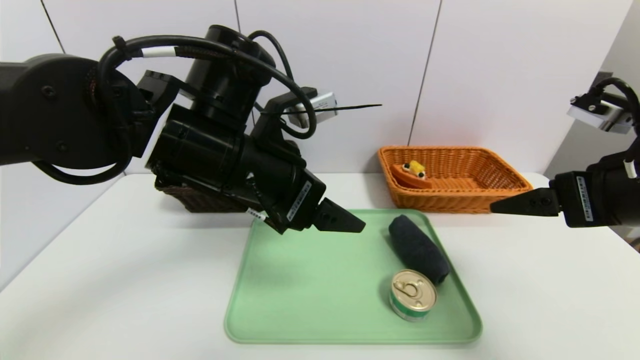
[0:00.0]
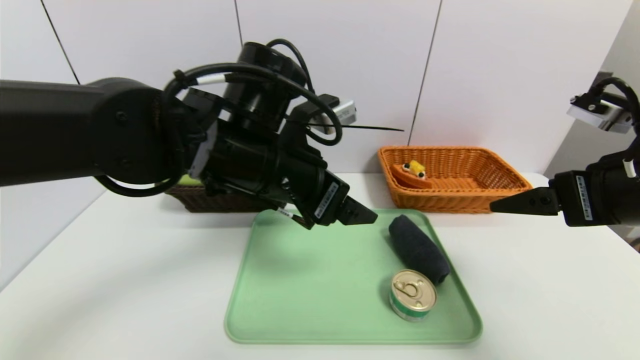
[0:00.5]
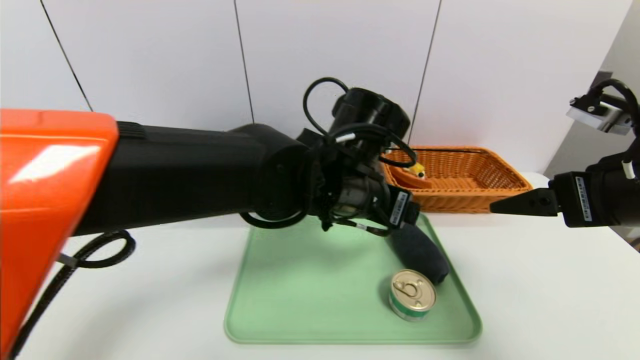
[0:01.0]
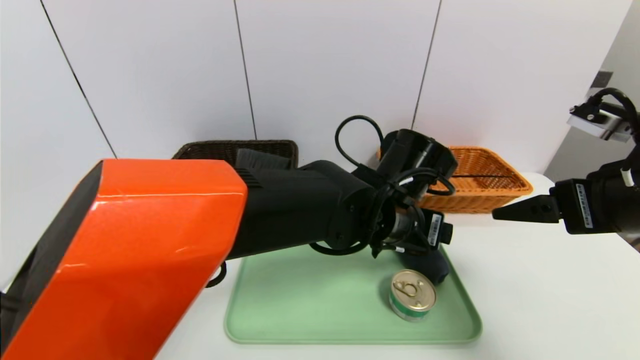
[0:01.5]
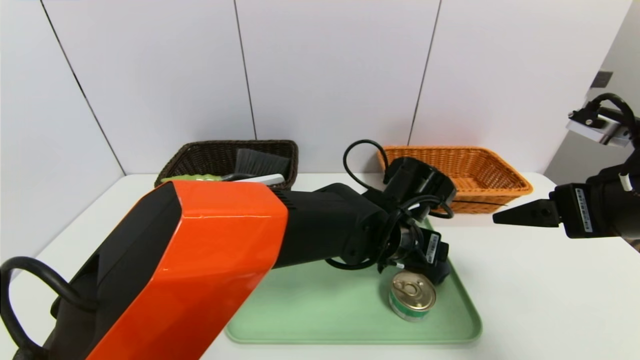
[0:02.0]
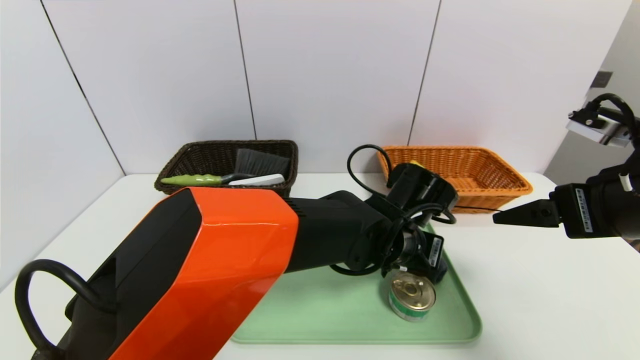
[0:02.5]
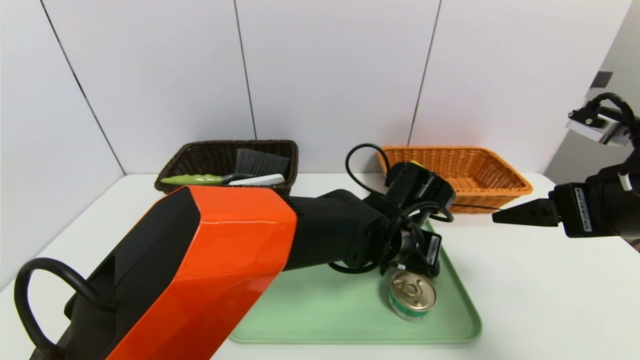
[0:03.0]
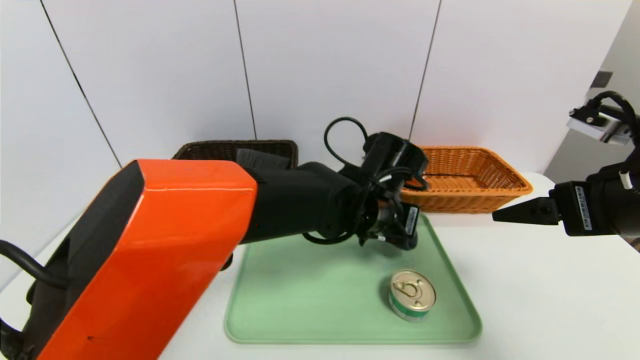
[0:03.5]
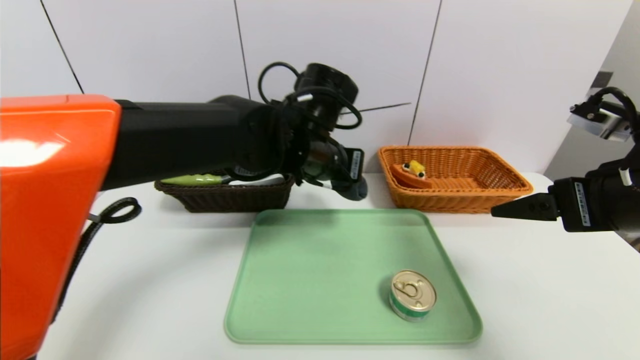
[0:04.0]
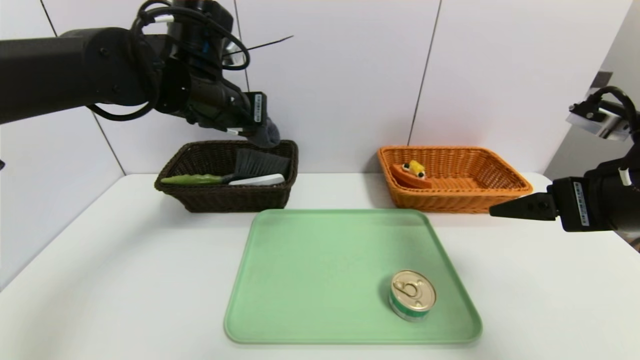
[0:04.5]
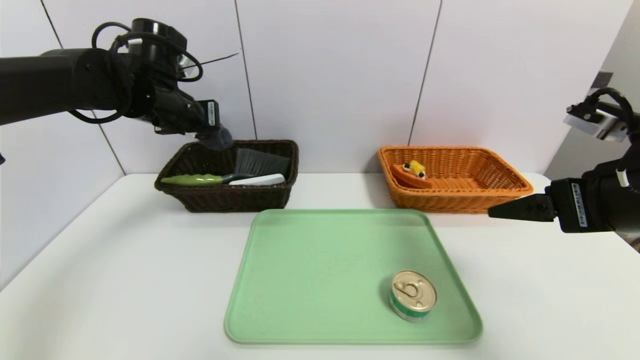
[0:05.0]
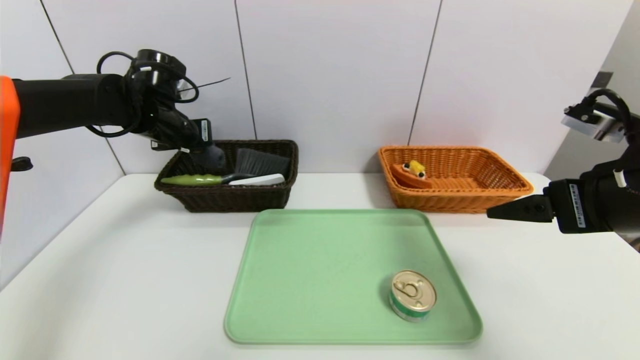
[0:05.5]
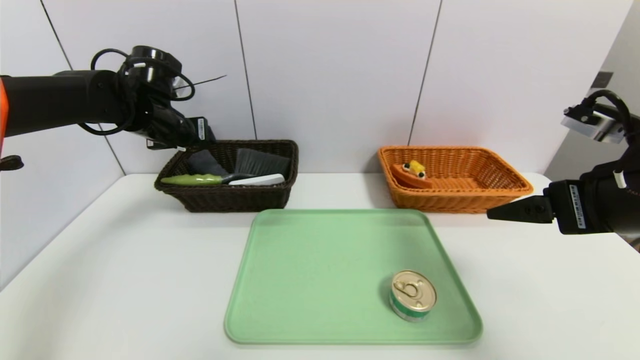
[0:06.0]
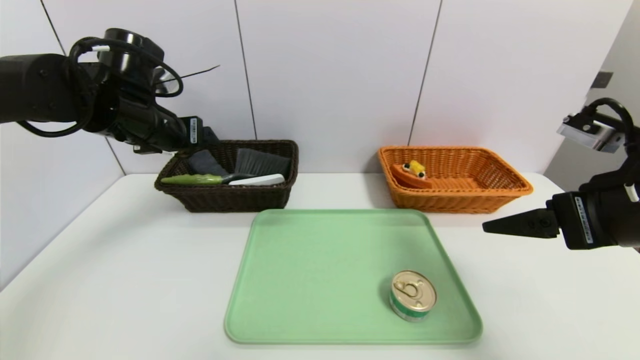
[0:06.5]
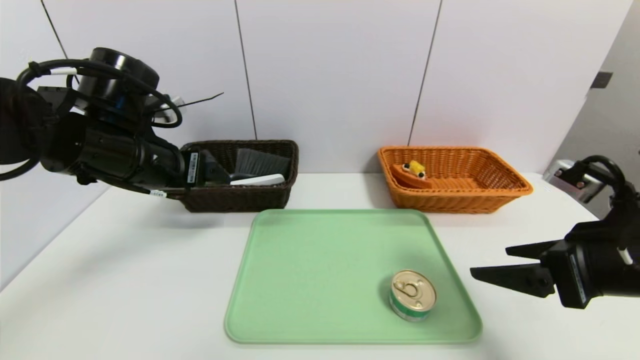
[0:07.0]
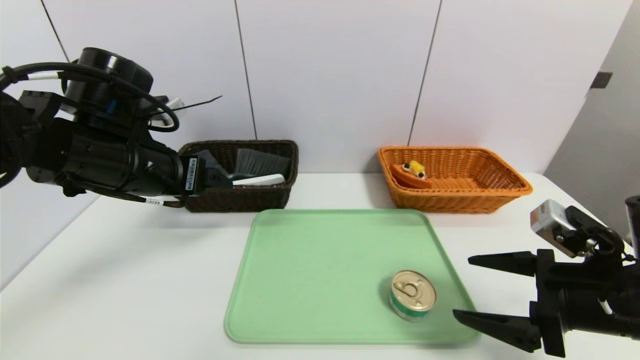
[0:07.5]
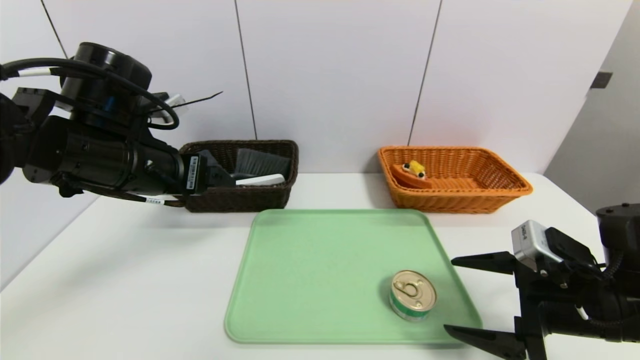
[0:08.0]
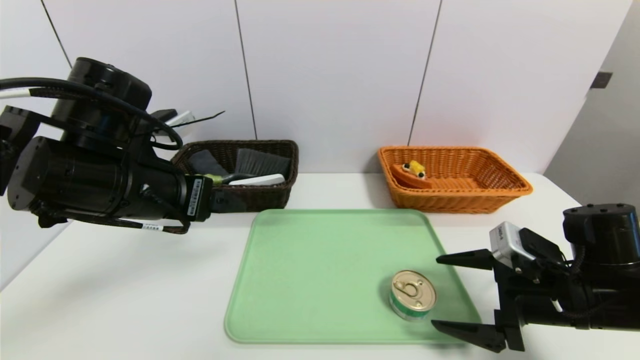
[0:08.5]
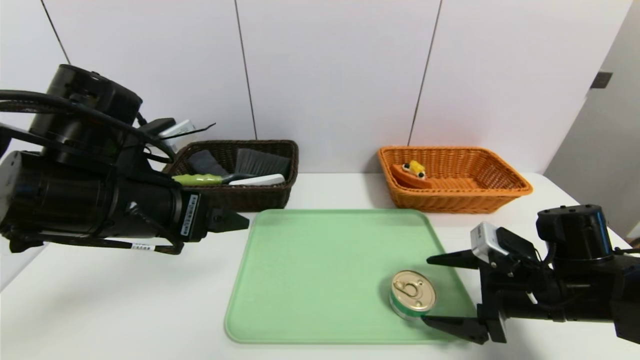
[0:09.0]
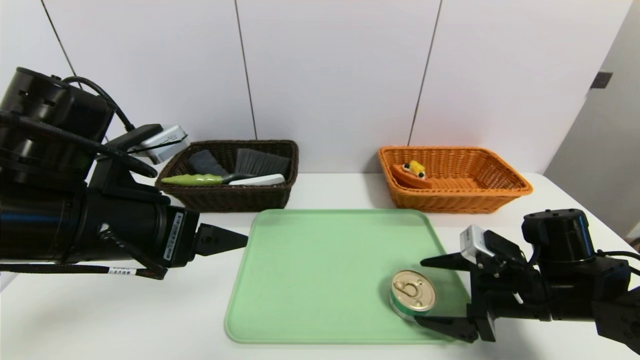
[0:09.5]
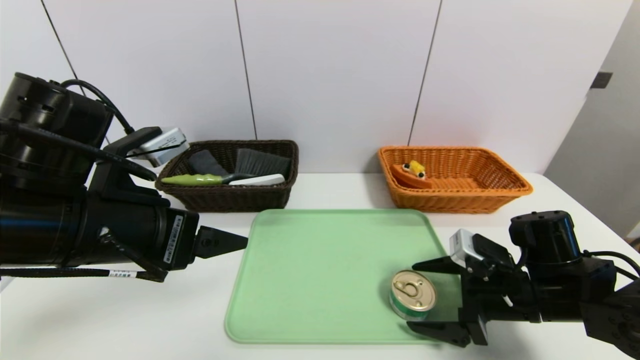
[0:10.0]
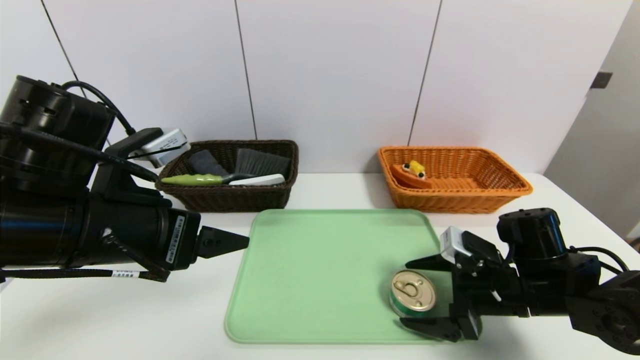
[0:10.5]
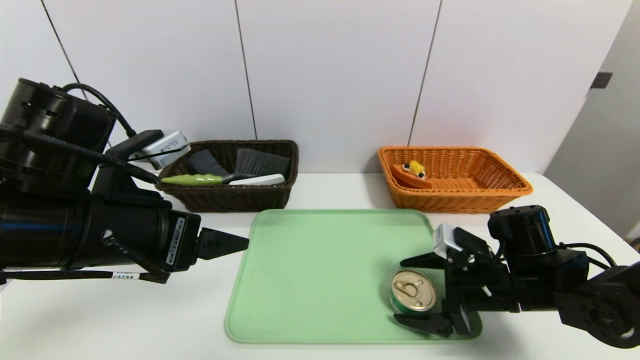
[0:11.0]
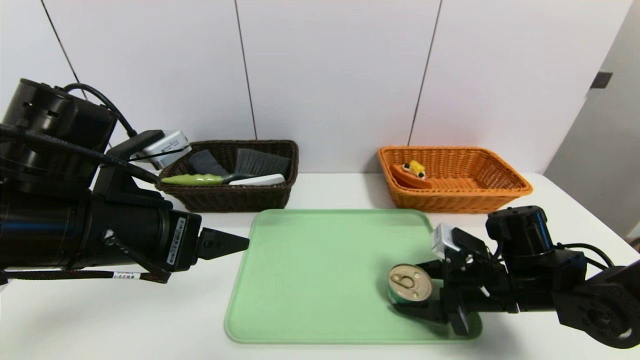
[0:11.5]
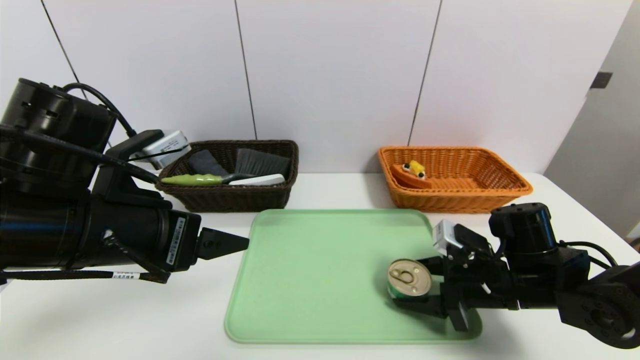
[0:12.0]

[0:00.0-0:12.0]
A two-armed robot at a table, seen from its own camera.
Task of the whole recording: place the food in the right basket with the right gripper, and place the non food items in the left basket with the left gripper.
Step, 0:00.0 to 0:06.0: Grasp the grey towel and put it in the left basket.
0:00.0 to 0:02.0: The left gripper goes roughly 20 cm to the right and downward.
0:02.0 to 0:04.0: The left gripper moves to the left and upward, about 15 cm, and closes its fingers.
0:04.0 to 0:06.0: The left gripper travels to the left by roughly 25 cm, and opens.
0:06.0 to 0:08.0: The left gripper shifts some 15 cm backward. Meanwhile the right gripper travels downward by about 15 cm.
0:08.0 to 0:10.0: The right gripper is displaced forward and downward by some 5 cm, while the left gripper goes roughly 10 cm backward.
0:10.0 to 0:12.0: The right gripper closes up.

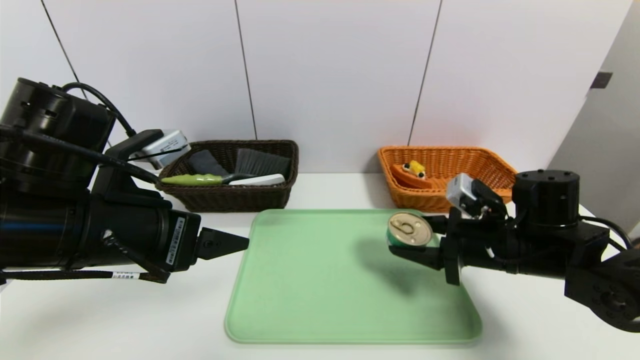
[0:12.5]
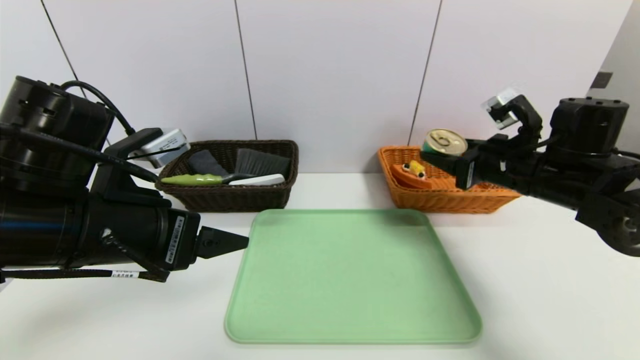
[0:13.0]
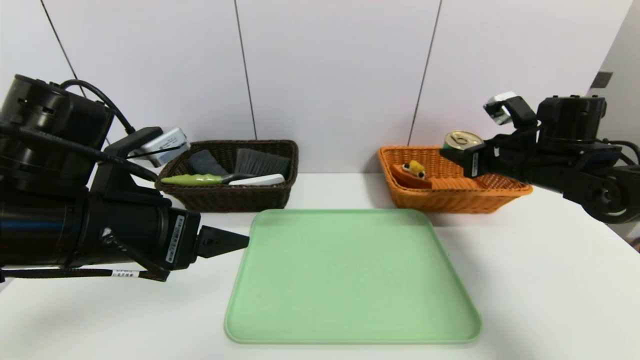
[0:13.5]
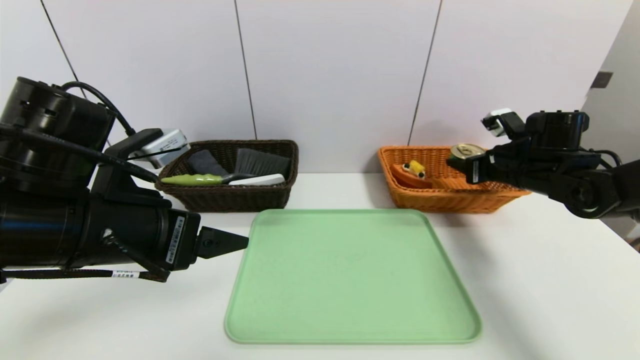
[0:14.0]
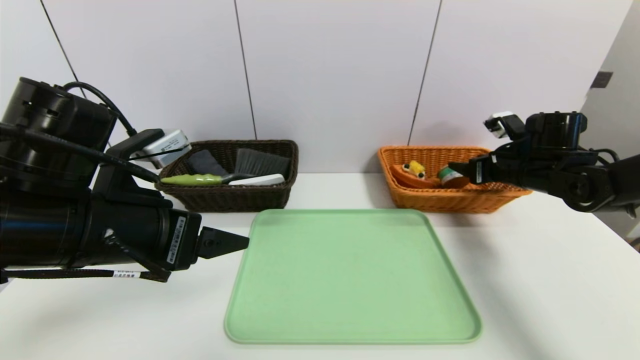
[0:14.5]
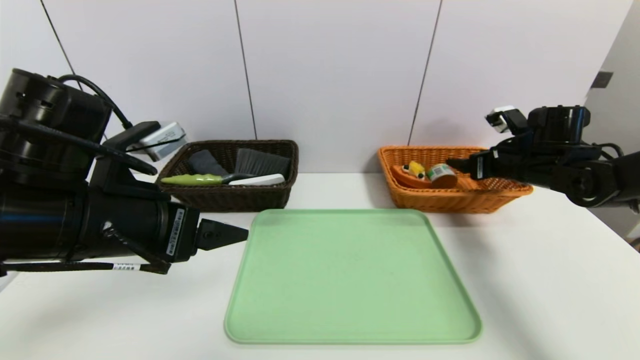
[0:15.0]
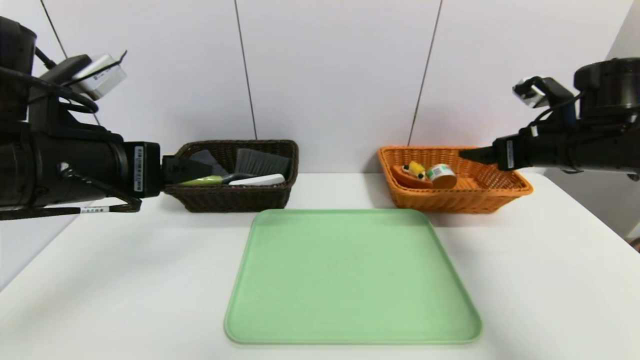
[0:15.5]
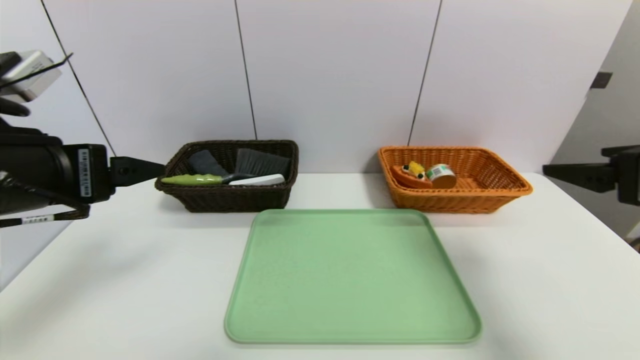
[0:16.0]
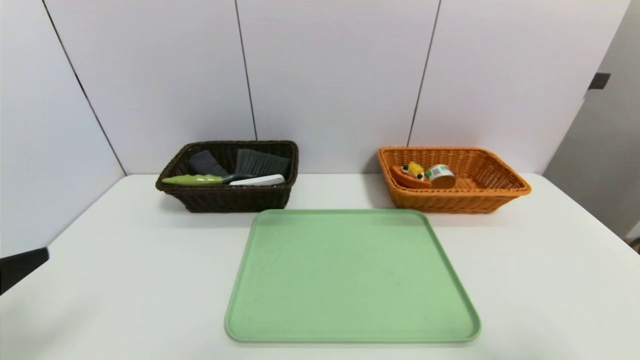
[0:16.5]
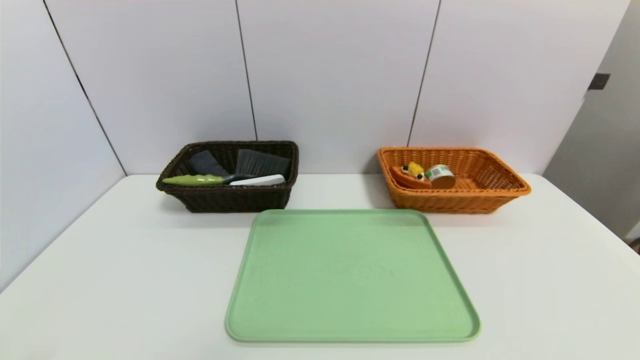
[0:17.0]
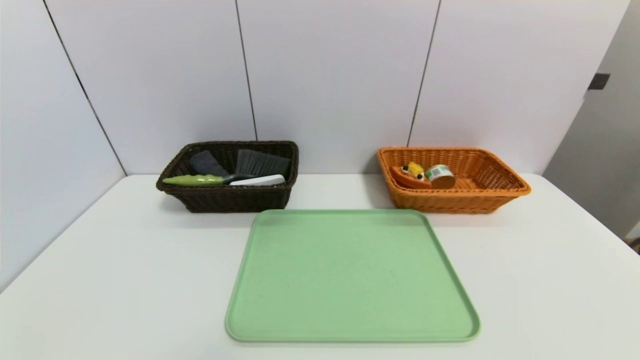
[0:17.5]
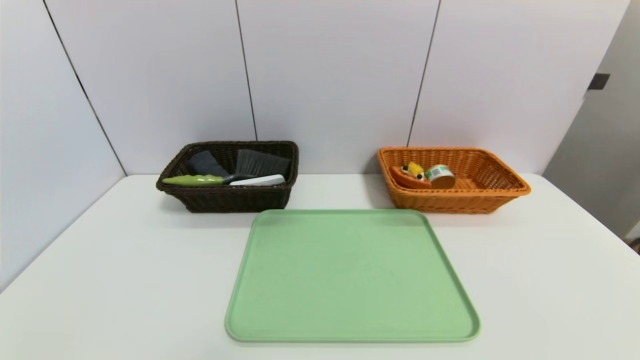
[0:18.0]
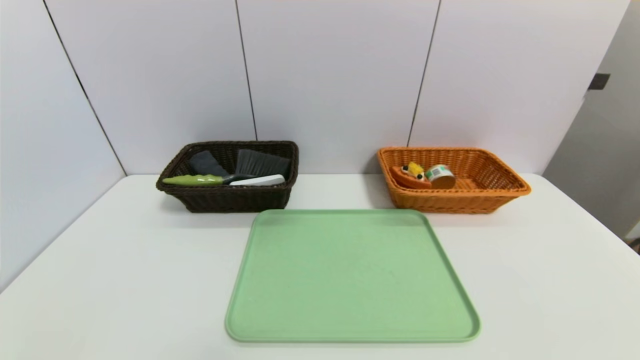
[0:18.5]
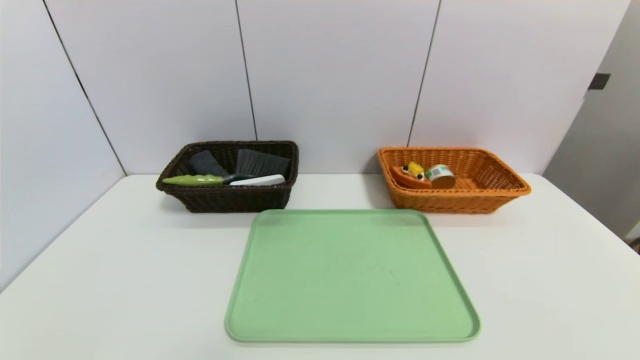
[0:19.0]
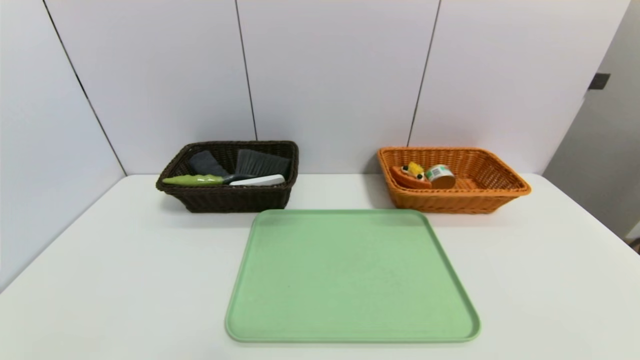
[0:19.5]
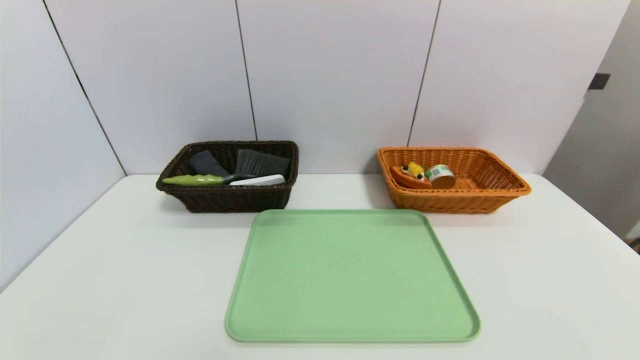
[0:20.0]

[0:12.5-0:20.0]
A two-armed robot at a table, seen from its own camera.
Task of the whole recording: place the food in the right basket with the right gripper, and place the non food items in the left basket with the left gripper.
Step, 0:12.5 to 0:15.0: Grasp the tin and put it in the right basket.
0:12.5 to 0:14.5: The right gripper is displaced forward and to the right by some 15 cm, and opens.
0:14.5 to 0:16.5: The left gripper shifts roughly 15 cm backward and to the left. Meanwhile the right gripper goes approximately 40 cm backward, and opens up.
0:16.5 to 0:18.0: The left gripper travels downward and backward by approximately 15 cm.
